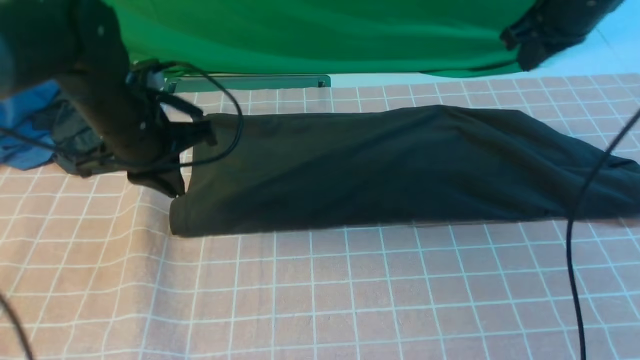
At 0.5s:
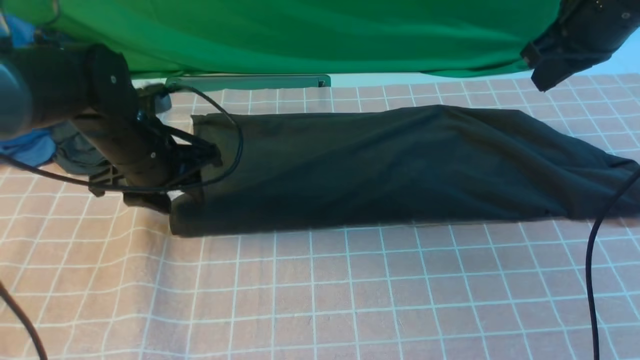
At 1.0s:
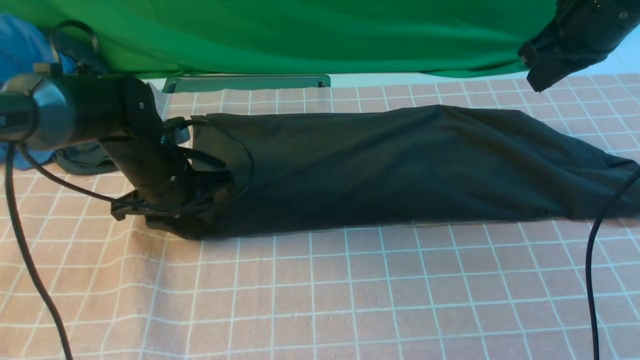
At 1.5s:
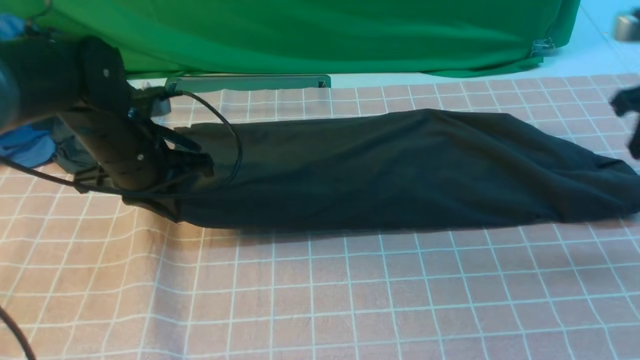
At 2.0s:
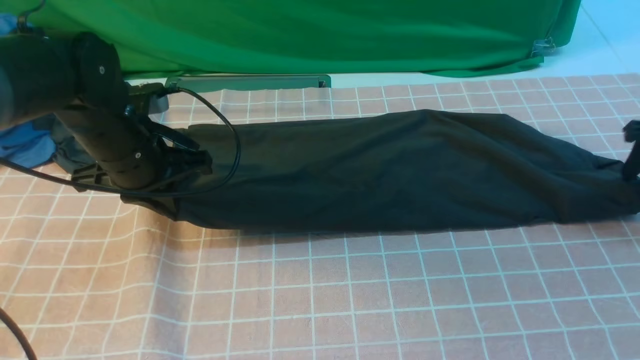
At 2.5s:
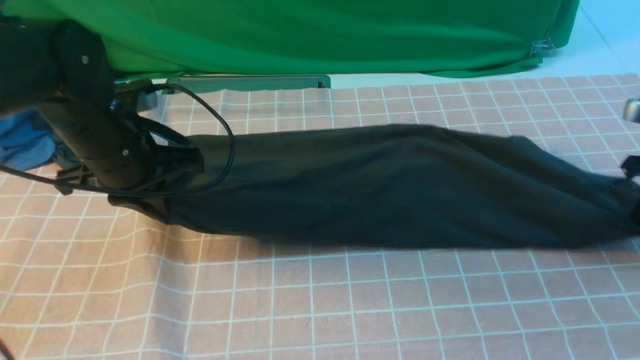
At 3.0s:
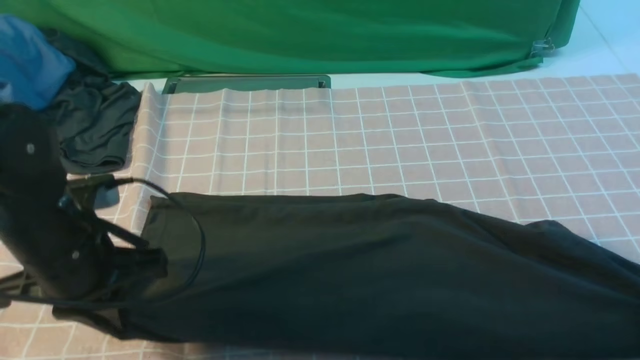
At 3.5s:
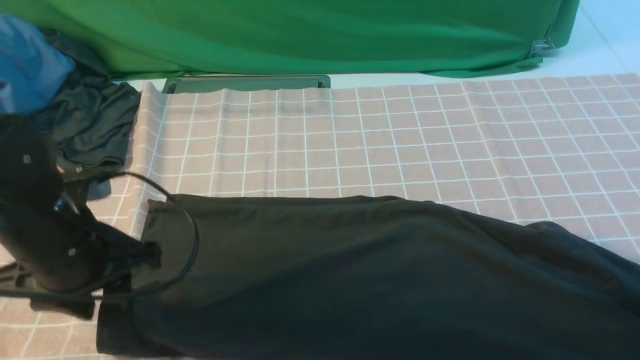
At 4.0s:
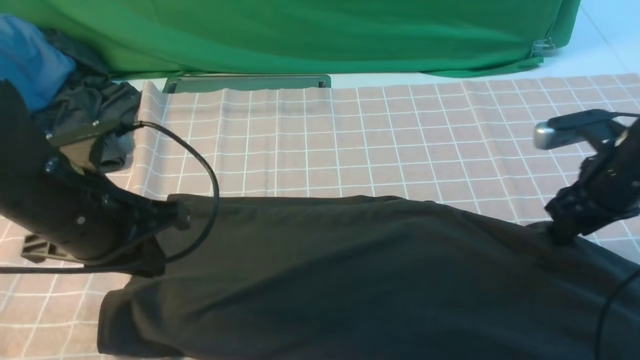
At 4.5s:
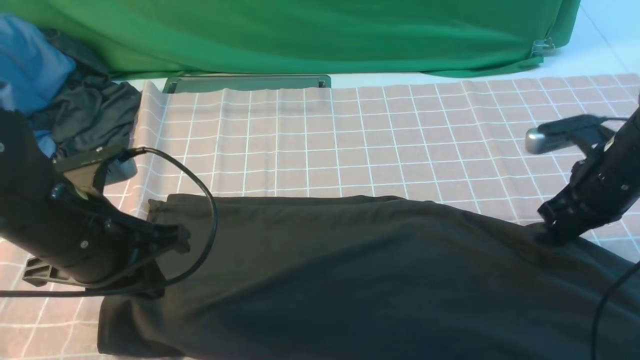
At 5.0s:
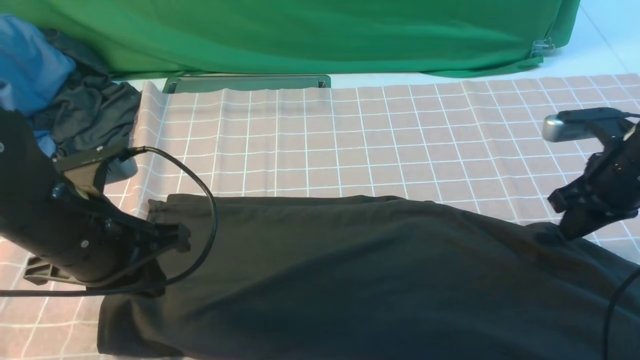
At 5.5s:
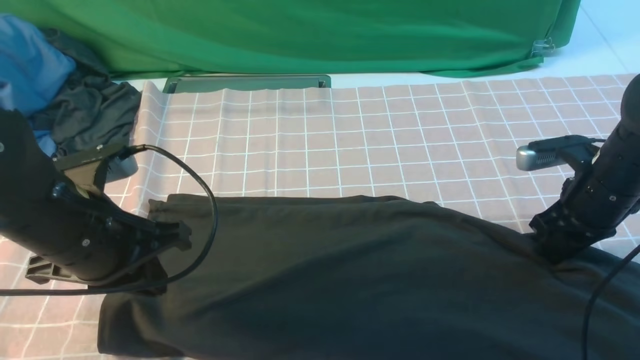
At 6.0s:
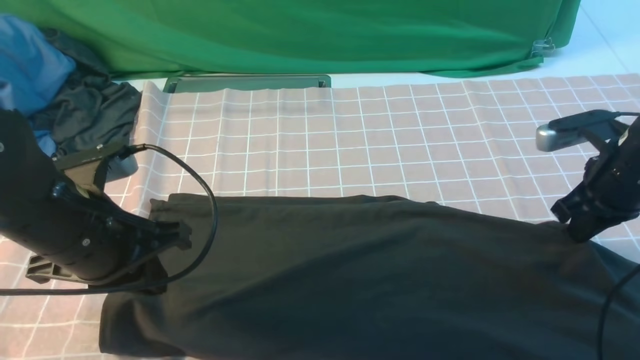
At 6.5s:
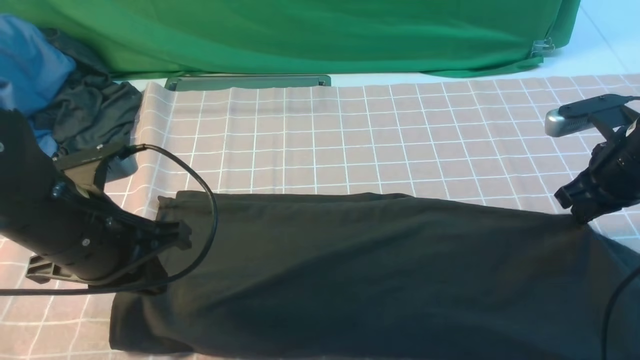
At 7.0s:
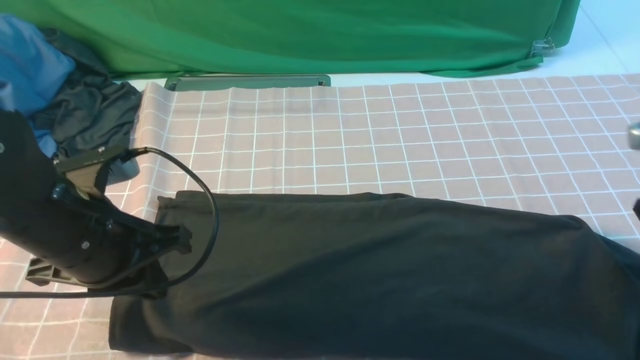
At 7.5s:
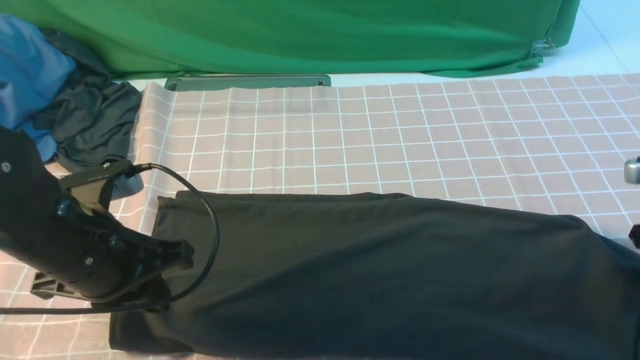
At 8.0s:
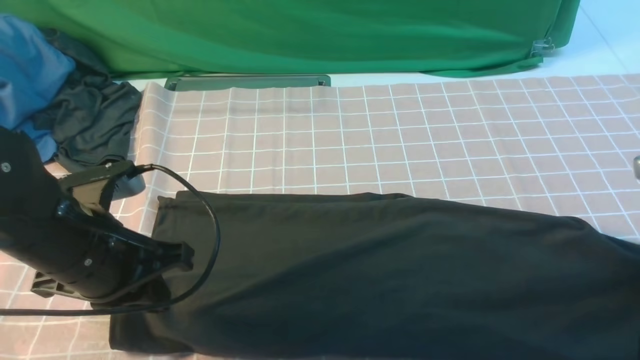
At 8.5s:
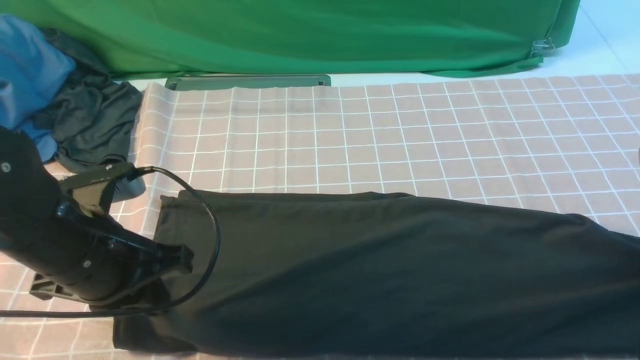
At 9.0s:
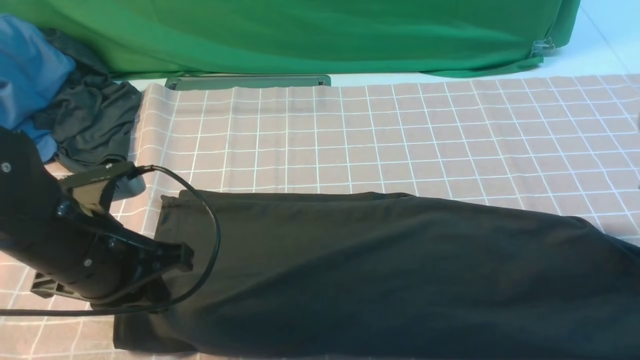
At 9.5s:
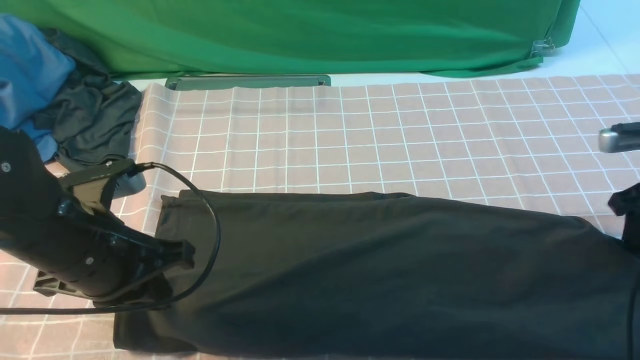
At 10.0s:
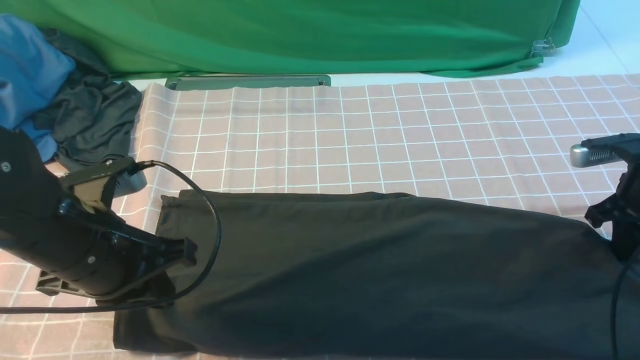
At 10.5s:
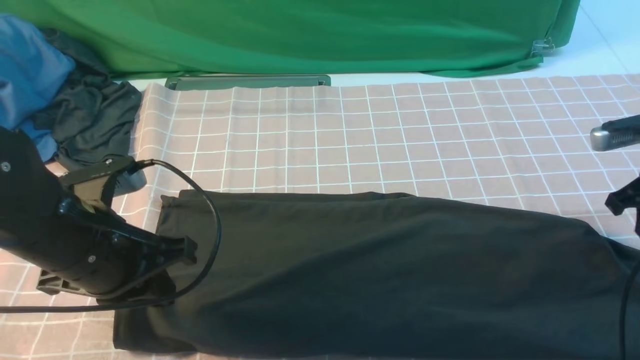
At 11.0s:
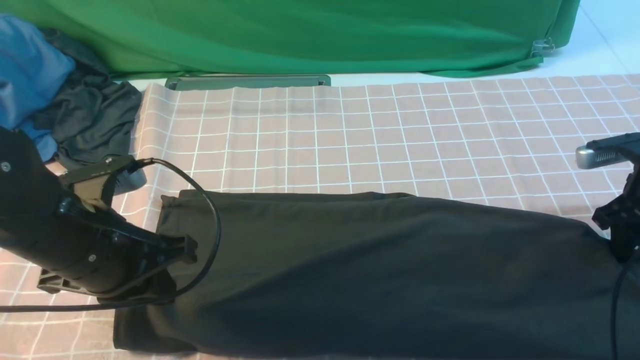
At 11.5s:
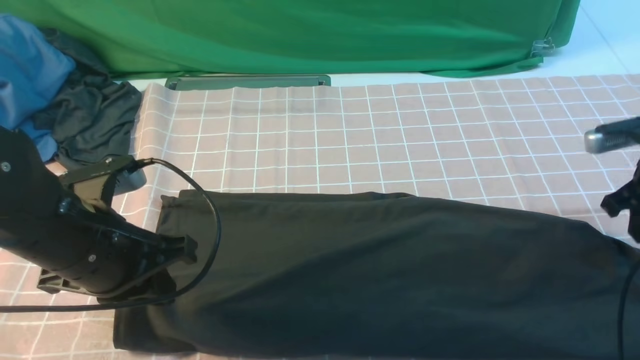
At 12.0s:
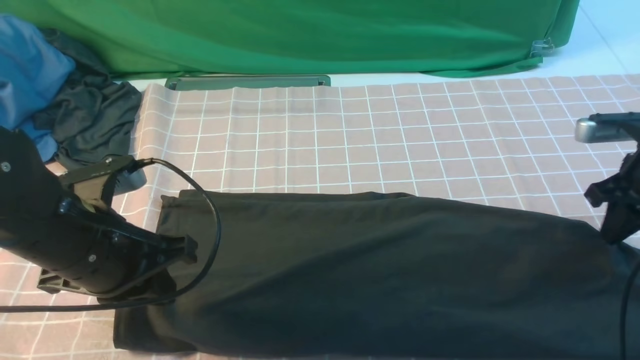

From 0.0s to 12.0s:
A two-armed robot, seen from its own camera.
From 0.0s to 2.0s: The left gripper goes downward and returns, about 10 cm each way, and opens, then closes once more; the right gripper shifts approximately 20 cm to the right and downward, and opens.
From 2.0s to 4.0s: The right gripper goes approximately 15 cm to the left and backward, and closes, then reopens; the left gripper shifts some 10 cm backward, and opens, then closes once more.
From 4.0s to 6.0s: The right gripper closes.
From 6.0s to 8.0s: The right gripper shifts some 10 cm to the right, and opens, then closes again.
From 8.0s to 10.0s: The right gripper ends up about 5 cm from where it was, and opens and closes again.
From 10.0s to 12.0s: The right gripper opens and closes again.

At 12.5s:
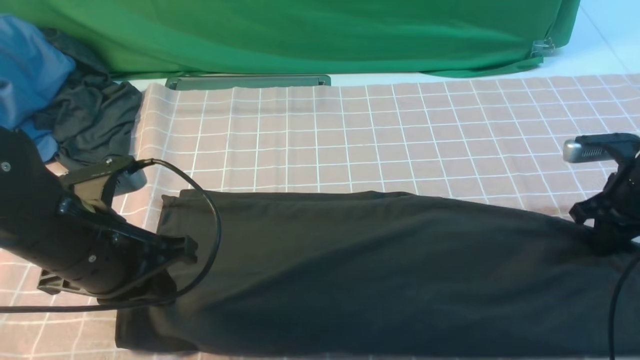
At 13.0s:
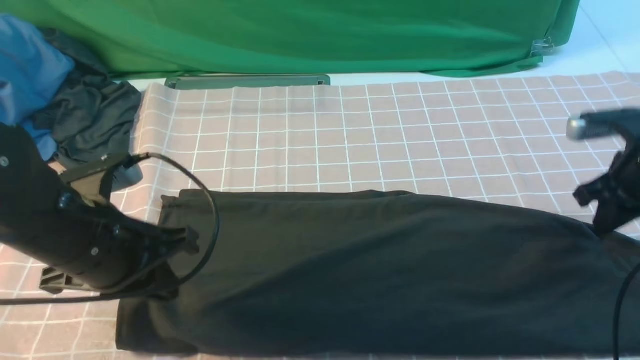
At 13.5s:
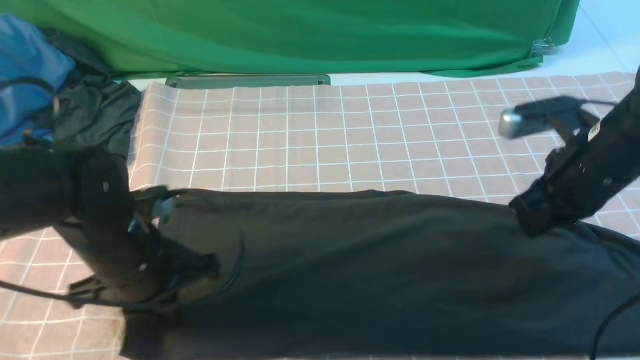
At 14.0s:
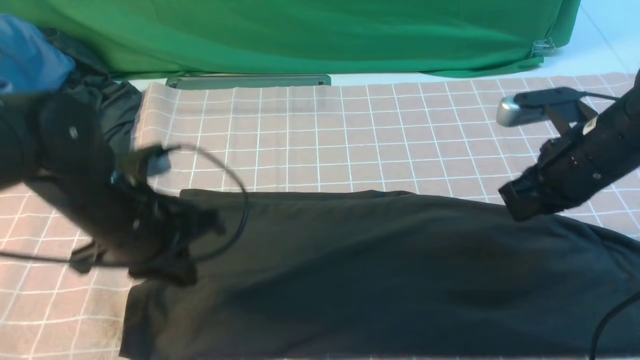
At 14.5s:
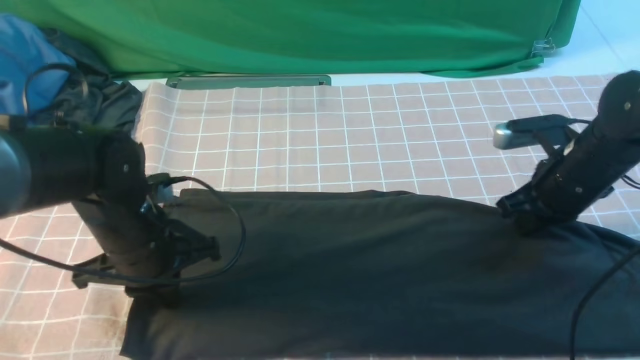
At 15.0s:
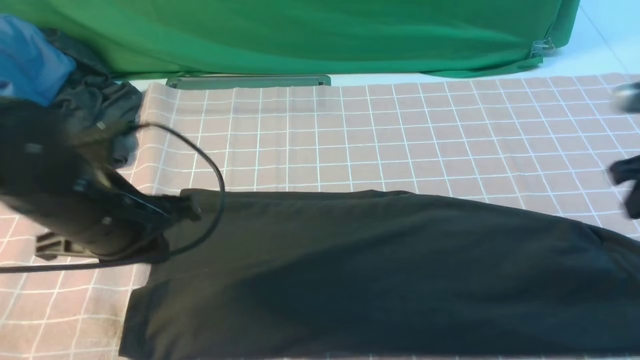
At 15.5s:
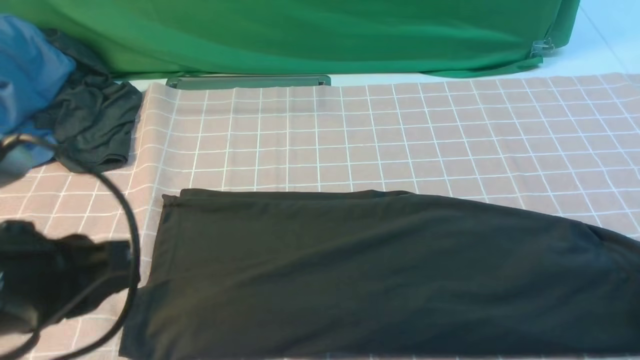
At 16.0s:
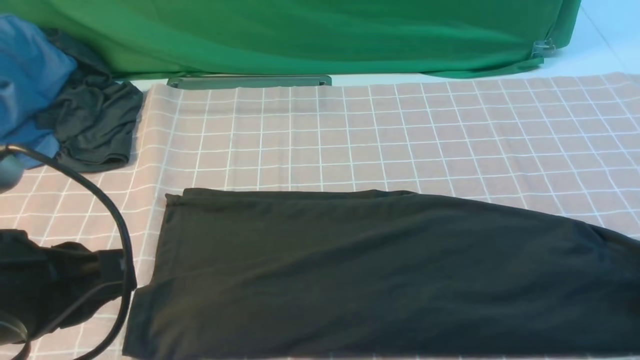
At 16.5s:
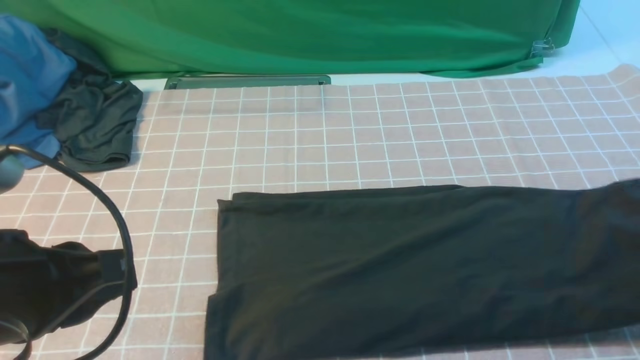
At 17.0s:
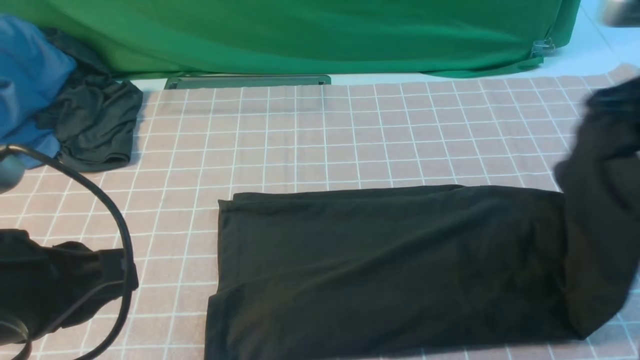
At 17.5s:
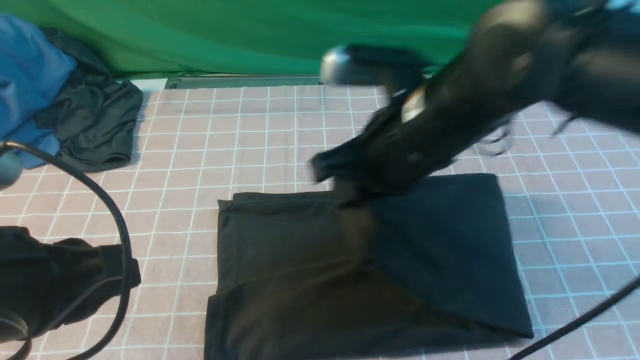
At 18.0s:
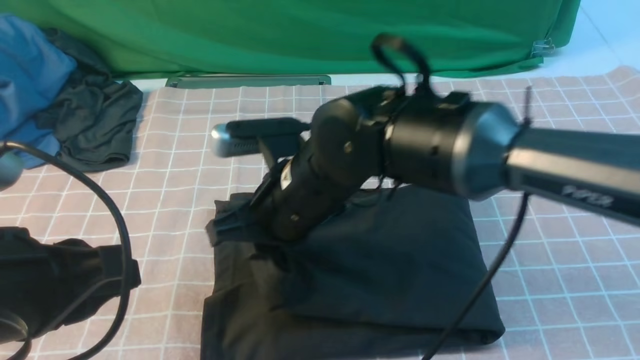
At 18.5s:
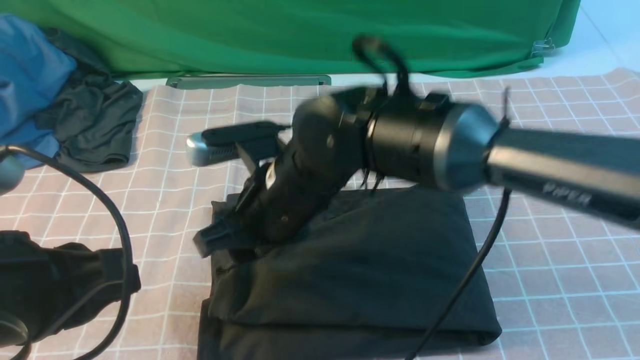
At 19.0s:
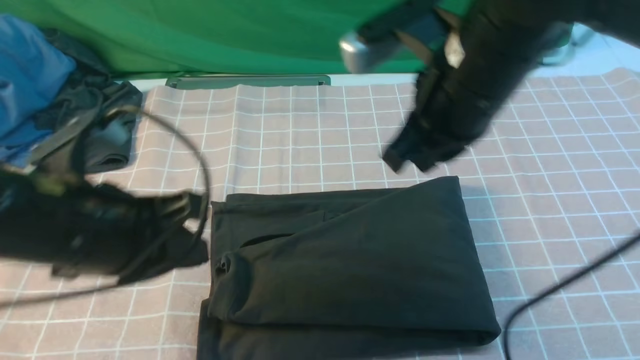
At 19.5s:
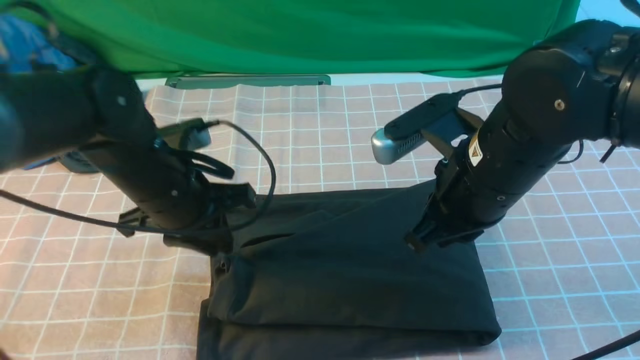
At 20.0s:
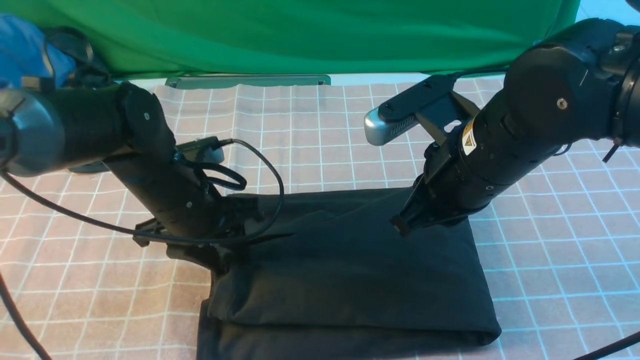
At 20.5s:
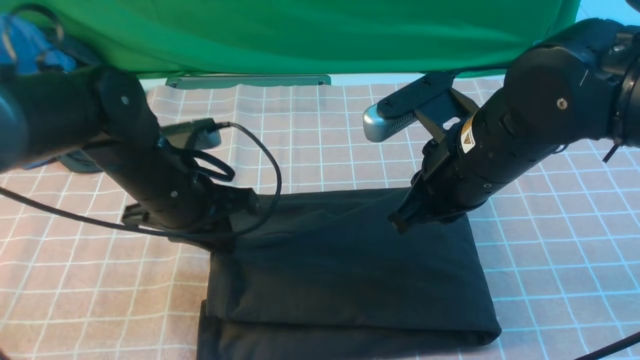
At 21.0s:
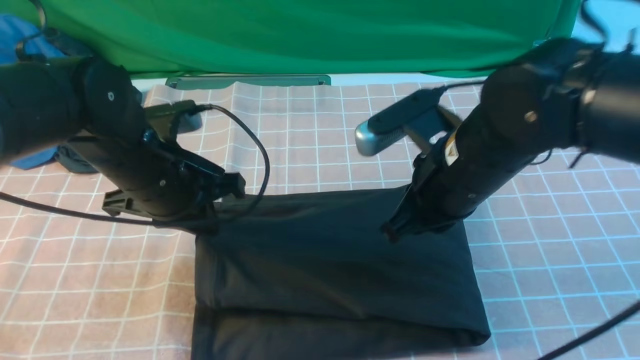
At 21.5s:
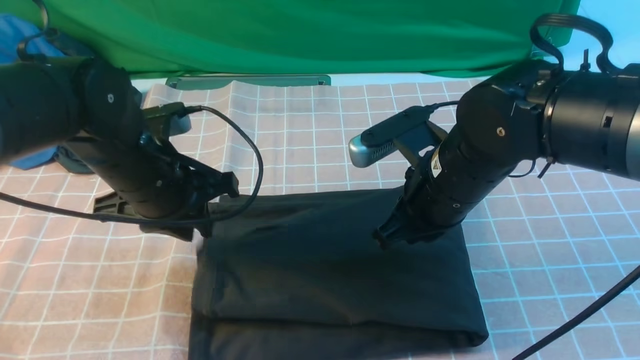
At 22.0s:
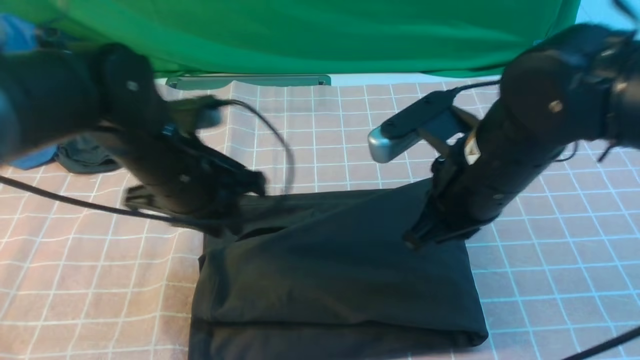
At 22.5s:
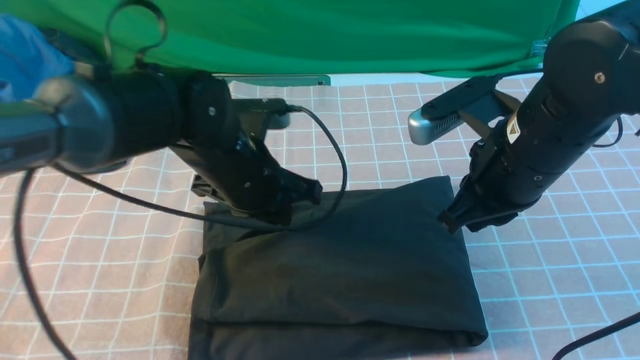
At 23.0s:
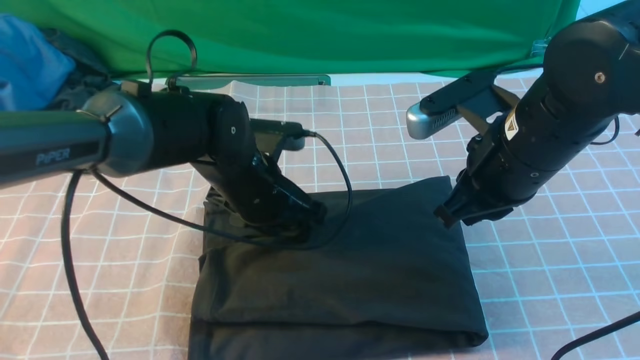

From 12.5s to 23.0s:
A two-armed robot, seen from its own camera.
Step, from 12.5s to 16.0s: use the right arm to clamp the right edge of the fabric.
Step, from 16.5s to 18.0s: use the right arm to drag the right edge of the fabric to the left and folds it over the left edge.
From 12.5s to 14.5s: The right gripper shifts about 10 cm to the left, while the left gripper heads downward and forward, covering about 10 cm.
From 14.5s to 16.5s: The right gripper goes roughly 20 cm to the right, upward and backward, and opens, then closes once more, while the left gripper is displaced backward and upward by about 20 cm.
From 16.5s to 19.0s: The left gripper goes roughly 10 cm forward; the right gripper heads to the left, covering approximately 30 cm, and opens, then closes again.
From 19.0s to 21.0s: The left gripper travels forward and downward by approximately 10 cm, and opens and closes again, while the right gripper moves downward, roughly 5 cm.
From 21.0s to 23.0s: The right gripper ends up approximately 5 cm from where it was; the left gripper moves to the right, roughly 10 cm, and opens up.
